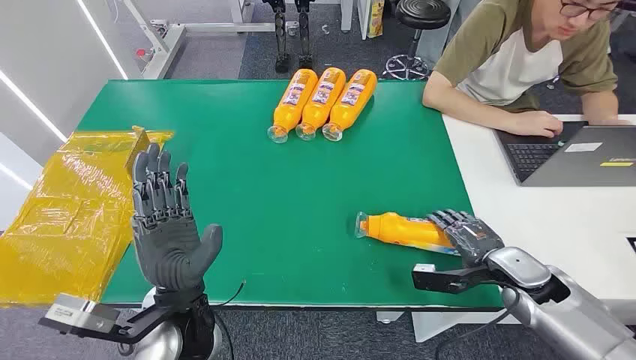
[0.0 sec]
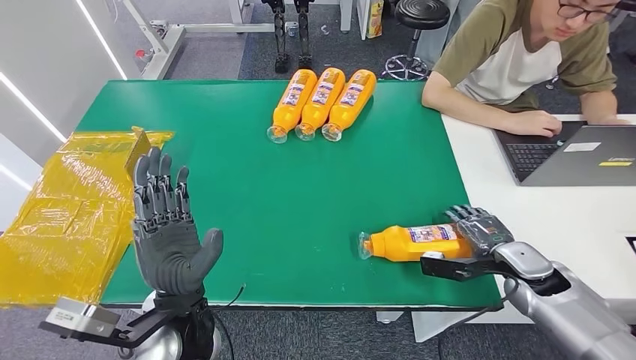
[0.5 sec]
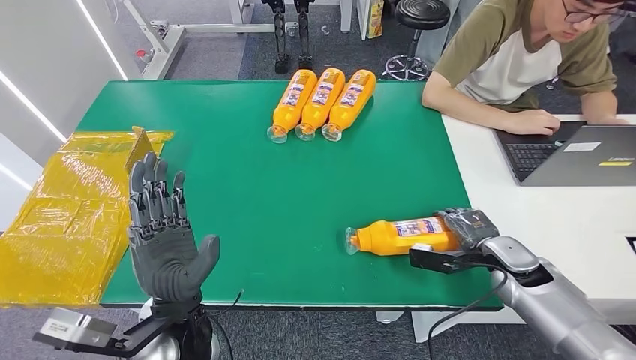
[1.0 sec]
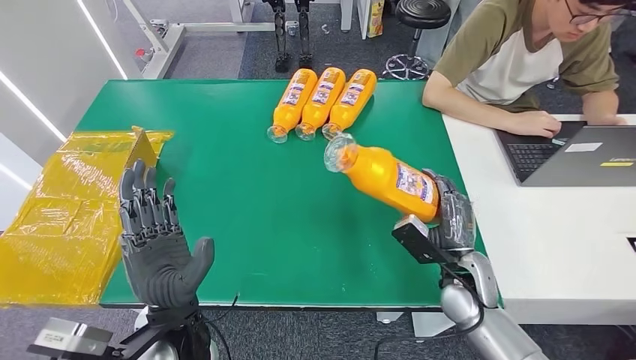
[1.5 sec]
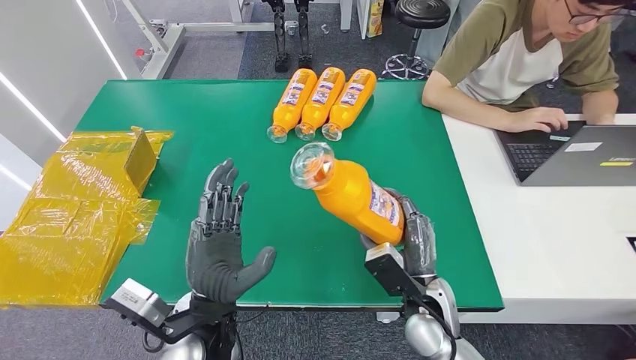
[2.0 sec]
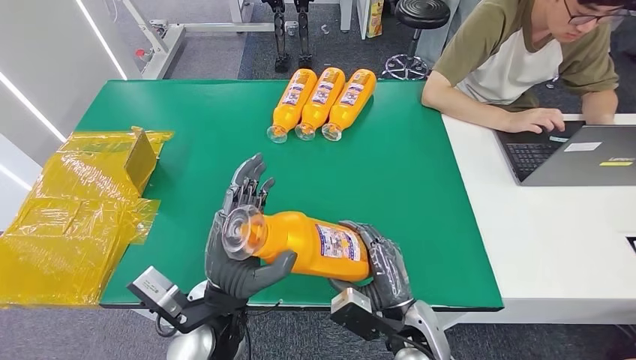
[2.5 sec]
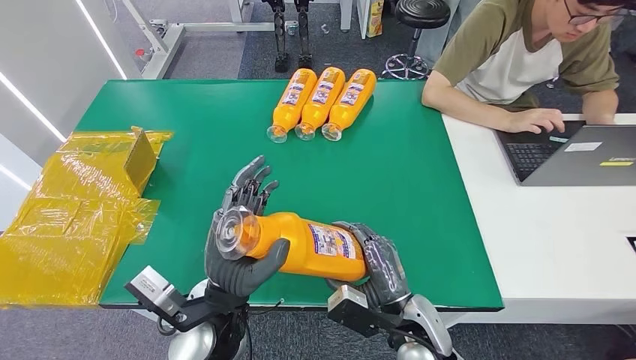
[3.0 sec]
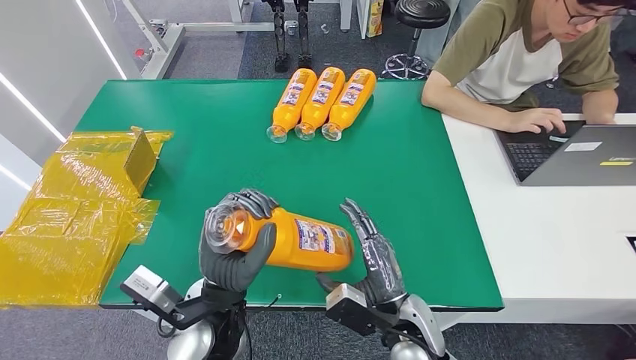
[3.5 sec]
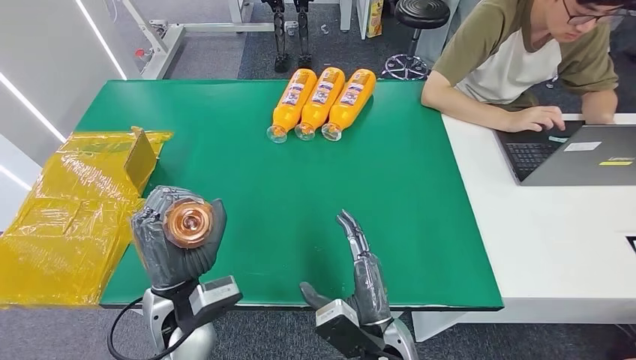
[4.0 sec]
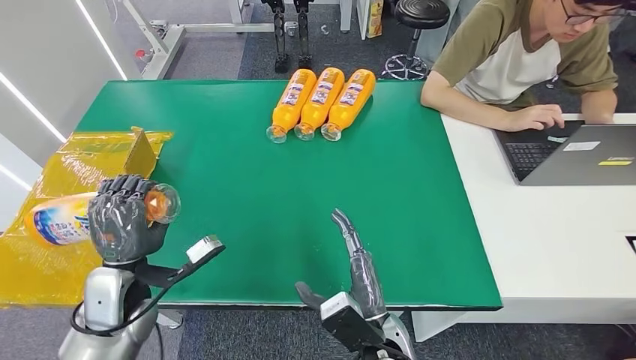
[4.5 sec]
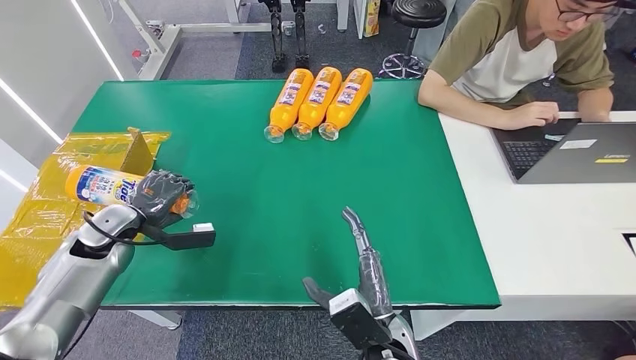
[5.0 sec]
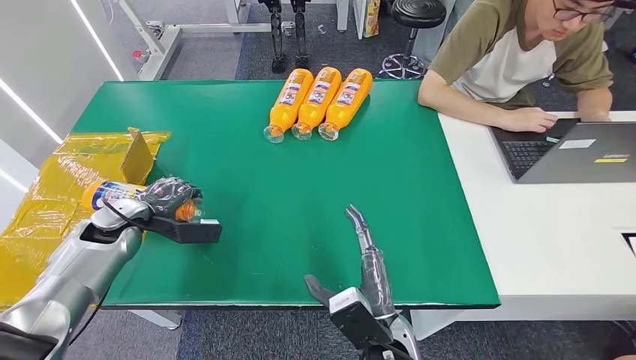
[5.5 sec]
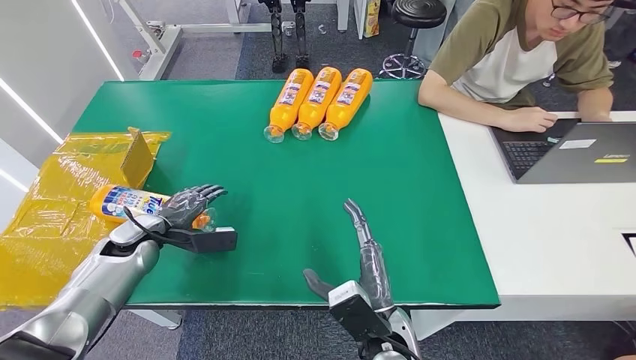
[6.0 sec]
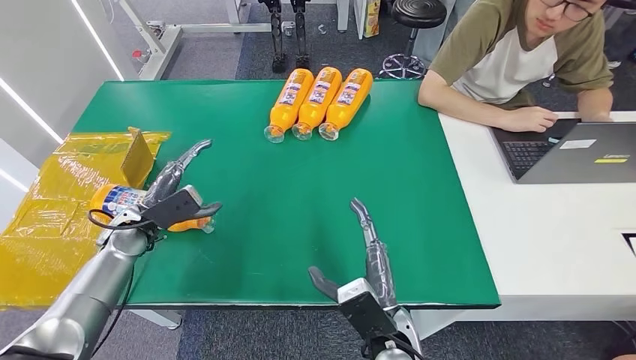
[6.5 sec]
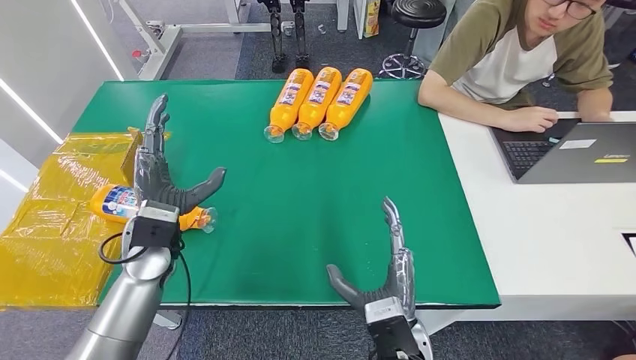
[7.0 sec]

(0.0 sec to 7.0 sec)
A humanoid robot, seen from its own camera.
Step, 0.0 sec - 1.5 sec: Pick up the bottle from the table.
Step, 2.0 sec - 7.0 sec: Turn the bottle to the front side.
2.0 sec - 3.5 sec: The right hand moves approximately 5 cm.
5.0 sec - 7.0 sec: The left hand travels to the right by roughly 15 cm.
